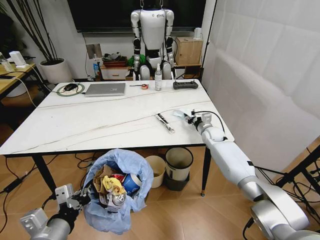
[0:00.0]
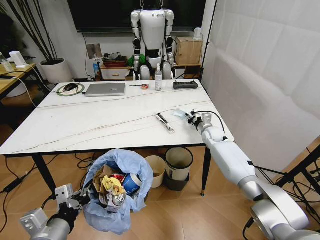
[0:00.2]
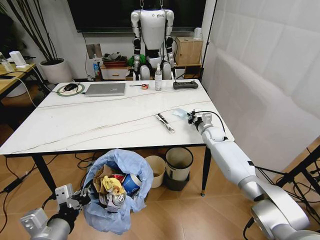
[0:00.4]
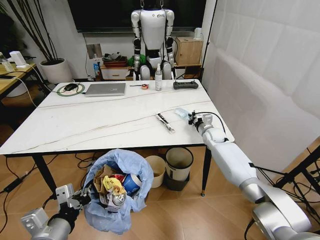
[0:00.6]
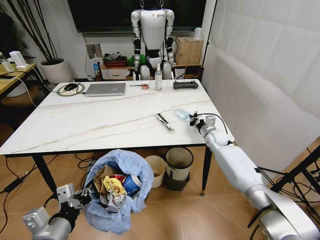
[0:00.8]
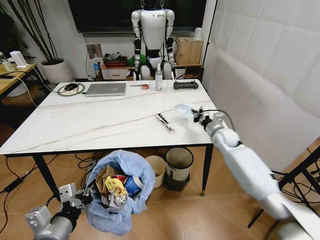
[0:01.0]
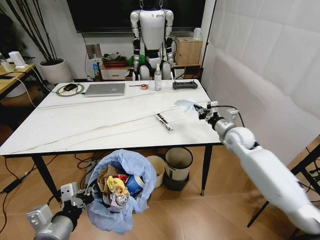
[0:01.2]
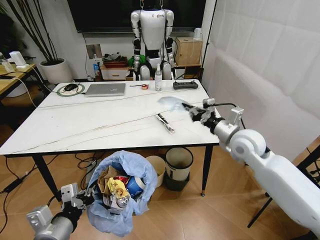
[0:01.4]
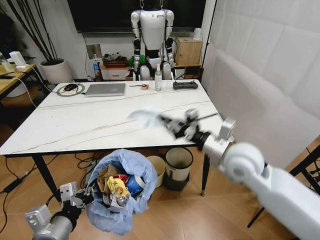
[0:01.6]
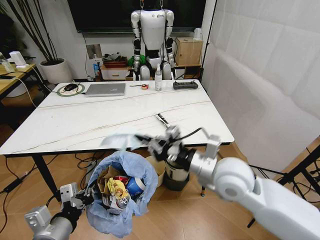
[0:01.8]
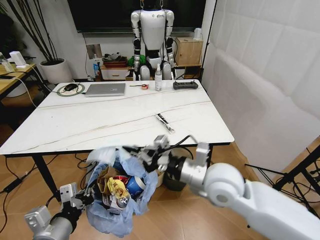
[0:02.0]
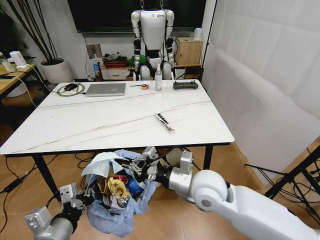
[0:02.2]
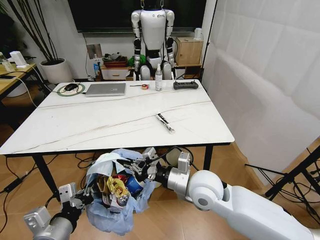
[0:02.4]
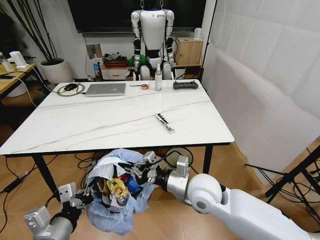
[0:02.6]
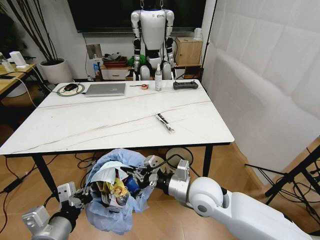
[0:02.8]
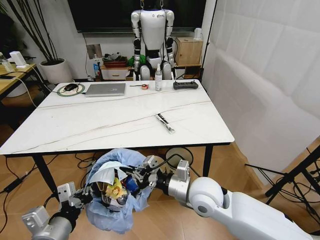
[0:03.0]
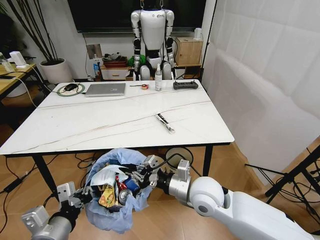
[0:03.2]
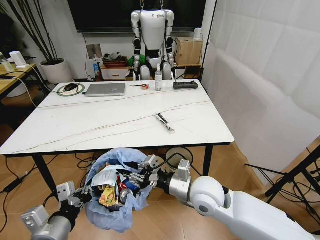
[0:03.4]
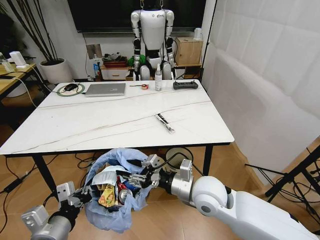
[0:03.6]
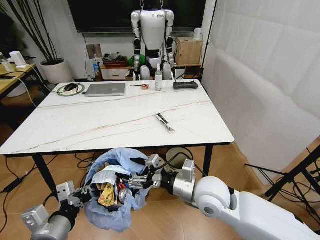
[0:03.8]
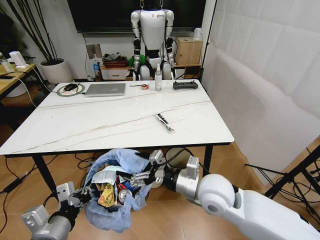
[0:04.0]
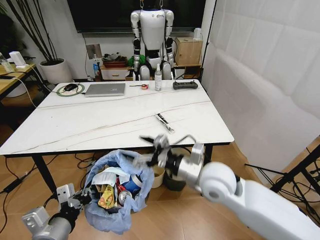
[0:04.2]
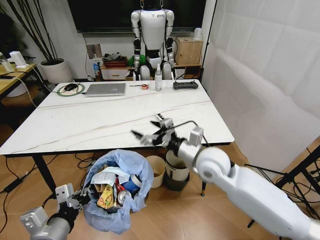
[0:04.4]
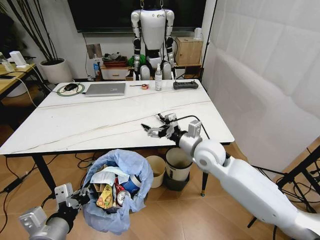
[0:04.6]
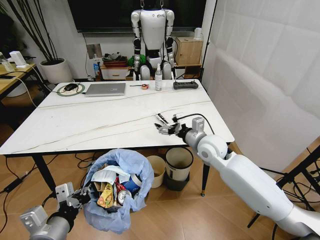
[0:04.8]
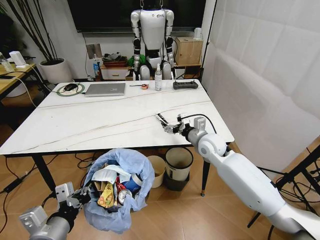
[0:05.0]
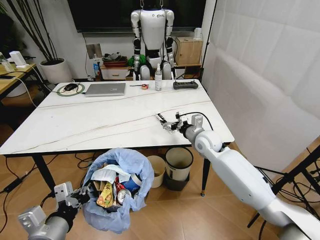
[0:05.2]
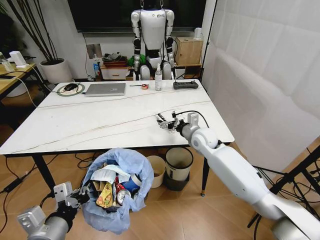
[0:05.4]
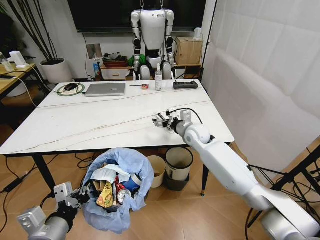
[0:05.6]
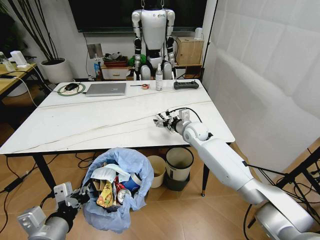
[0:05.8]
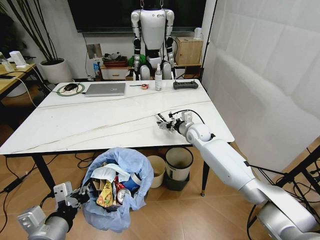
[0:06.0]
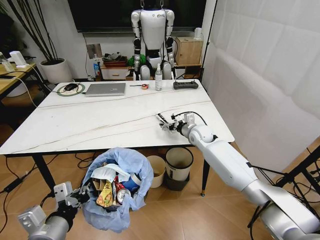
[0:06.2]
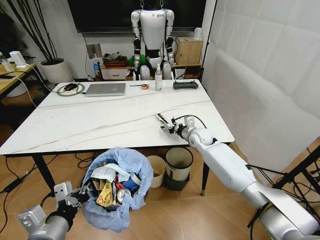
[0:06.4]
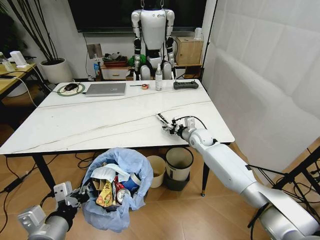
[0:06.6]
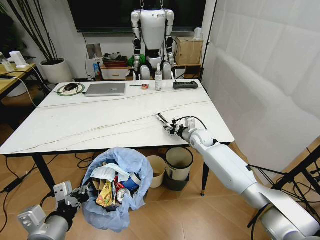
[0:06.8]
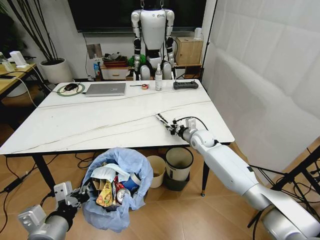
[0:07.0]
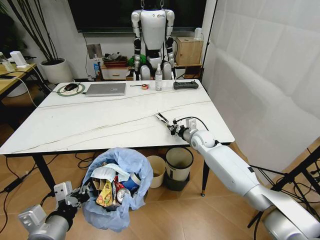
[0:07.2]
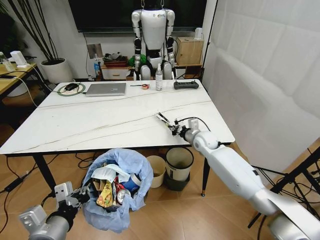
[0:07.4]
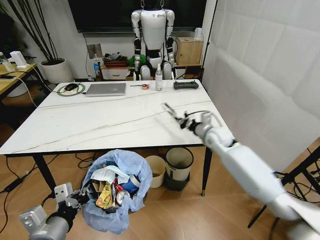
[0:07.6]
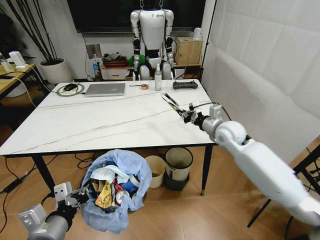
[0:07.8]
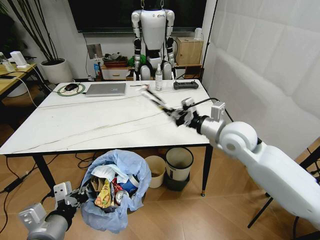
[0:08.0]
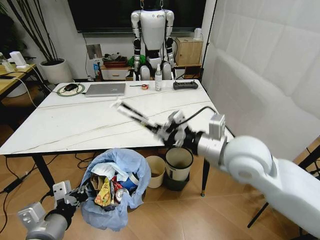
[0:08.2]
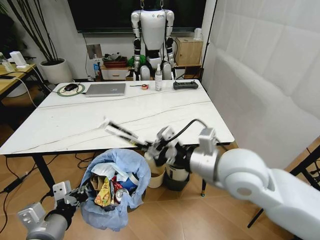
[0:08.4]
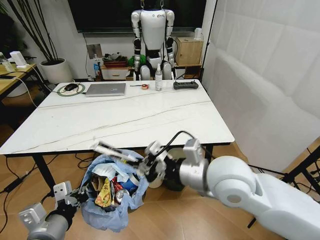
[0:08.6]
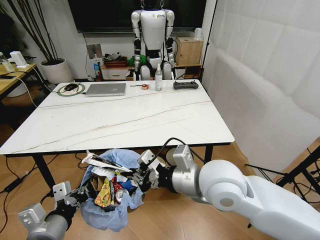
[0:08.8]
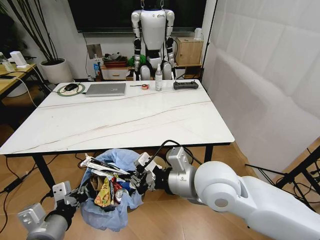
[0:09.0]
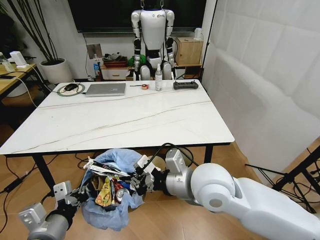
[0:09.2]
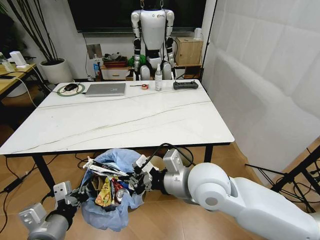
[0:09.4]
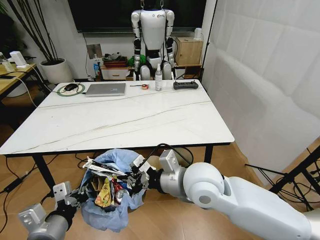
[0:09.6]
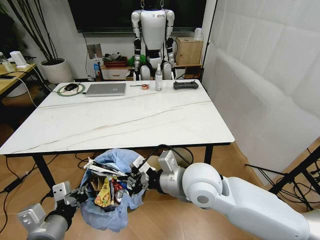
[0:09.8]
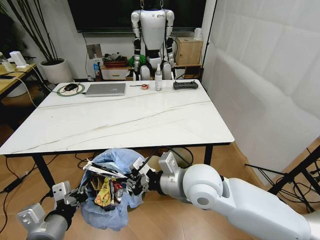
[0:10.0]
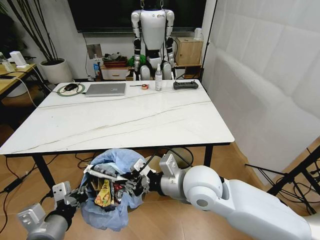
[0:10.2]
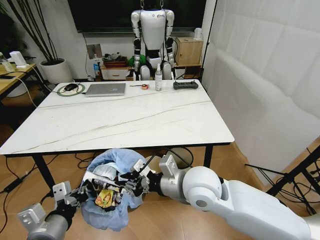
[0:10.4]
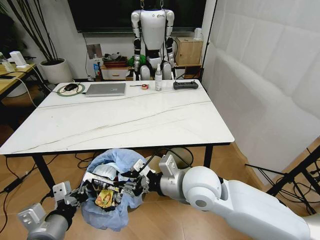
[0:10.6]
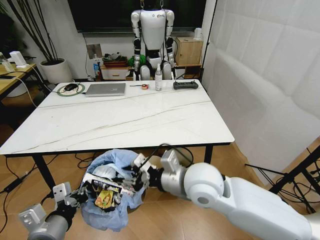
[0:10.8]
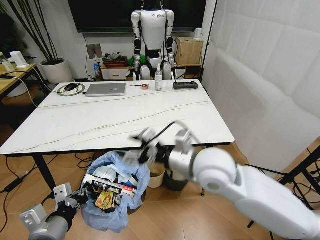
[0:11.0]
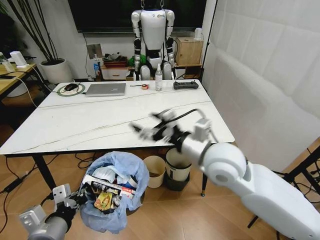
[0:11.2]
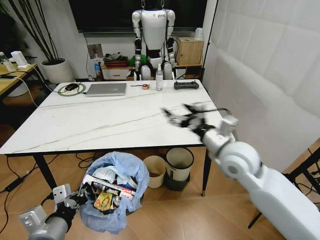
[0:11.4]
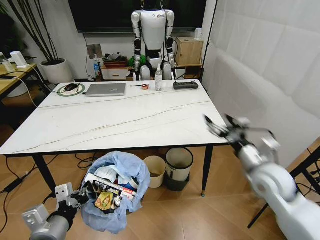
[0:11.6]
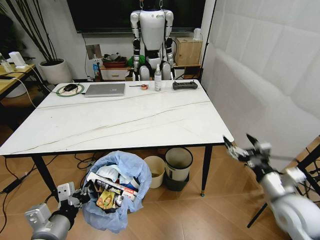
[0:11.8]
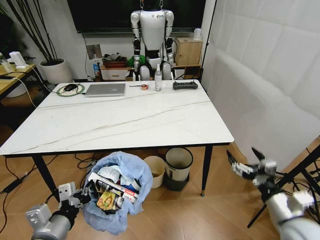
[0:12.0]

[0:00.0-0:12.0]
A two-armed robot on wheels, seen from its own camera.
Task of the whole recording: Pick up the trash bin and place the trash from the table into it.
0:00.0 to 0:01.6: The right gripper goes about 30 cm backward and upward, and closes up.
0:01.6 to 0:03.0: The right gripper heads to the left, downward and backward, covering some 15 cm.
0:03.0 to 0:04.4: The right gripper travels forward and upward by approximately 10 cm, and opens its fingers.
0:04.4 to 0:06.0: The right gripper is displaced forward and downward by about 20 cm.
0:06.0 to 0:07.6: The right gripper is displaced to the right by some 5 cm, and closes up.
0:07.6 to 0:09.0: The right gripper shifts approximately 30 cm backward, upward and to the left.
0:09.0 to 0:10.4: The right gripper is displaced downward by approximately 5 cm.
0:10.4 to 0:12.0: The right gripper is displaced to the right and backward by roughly 30 cm, and opens.

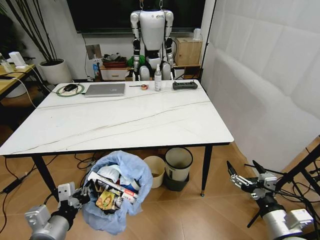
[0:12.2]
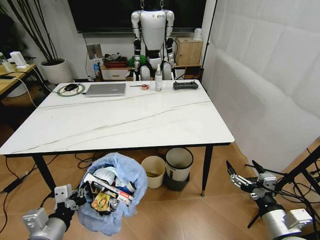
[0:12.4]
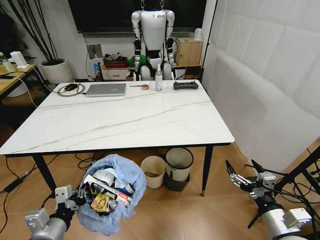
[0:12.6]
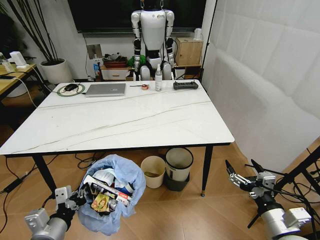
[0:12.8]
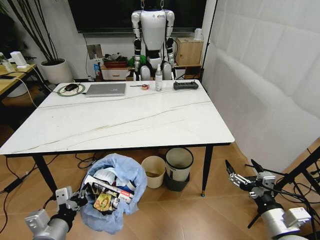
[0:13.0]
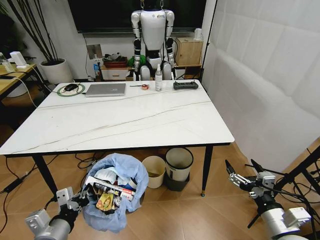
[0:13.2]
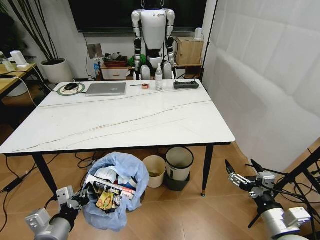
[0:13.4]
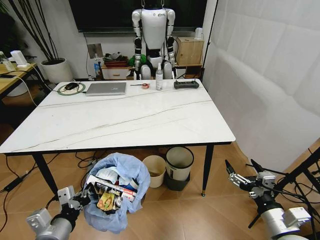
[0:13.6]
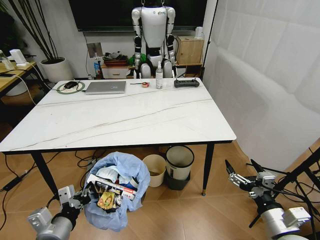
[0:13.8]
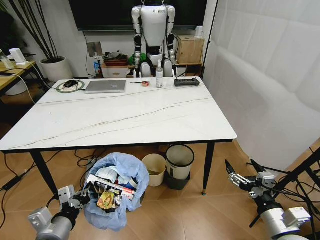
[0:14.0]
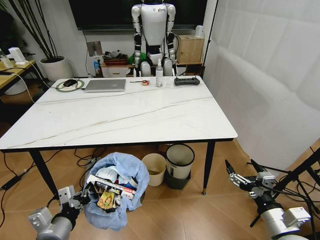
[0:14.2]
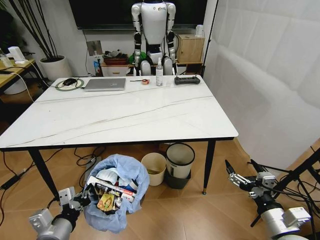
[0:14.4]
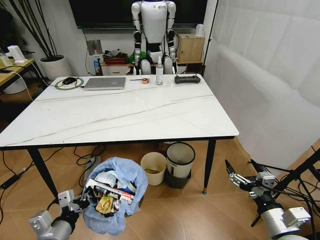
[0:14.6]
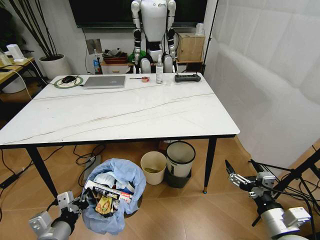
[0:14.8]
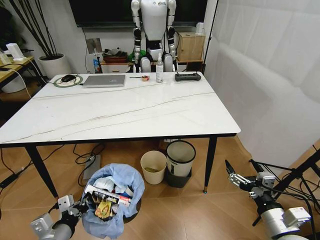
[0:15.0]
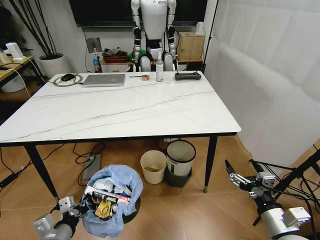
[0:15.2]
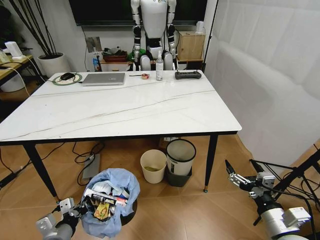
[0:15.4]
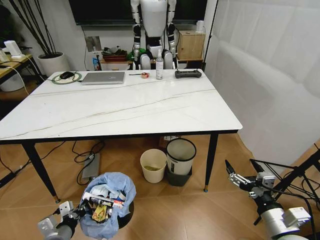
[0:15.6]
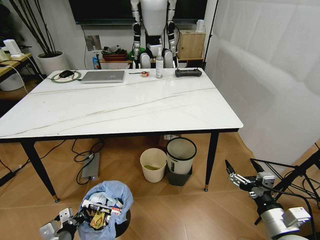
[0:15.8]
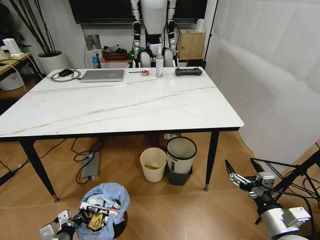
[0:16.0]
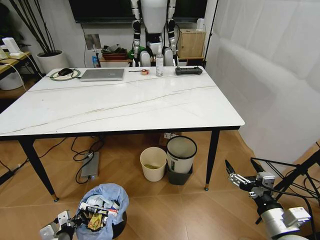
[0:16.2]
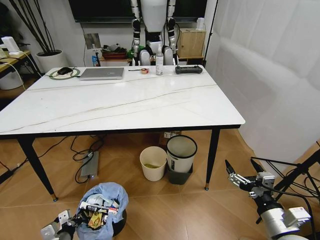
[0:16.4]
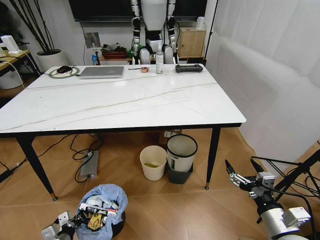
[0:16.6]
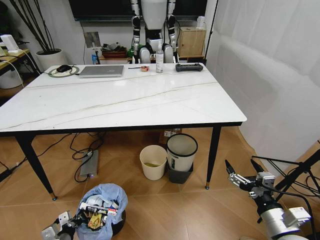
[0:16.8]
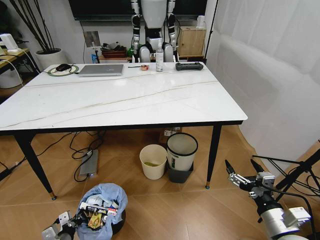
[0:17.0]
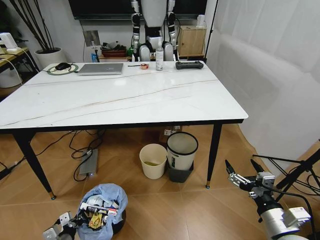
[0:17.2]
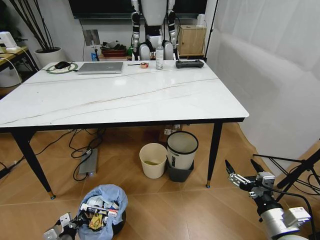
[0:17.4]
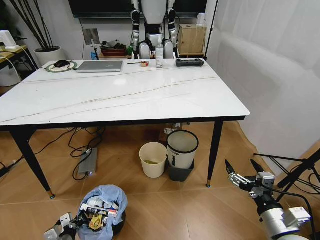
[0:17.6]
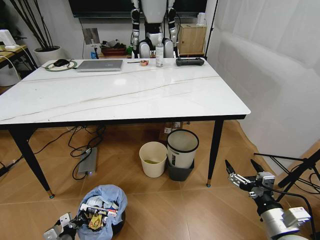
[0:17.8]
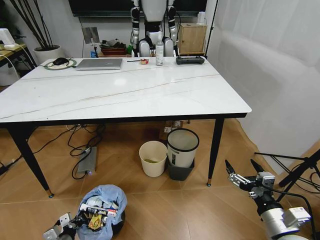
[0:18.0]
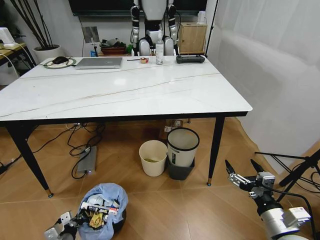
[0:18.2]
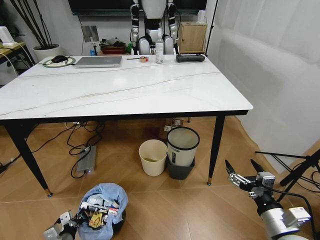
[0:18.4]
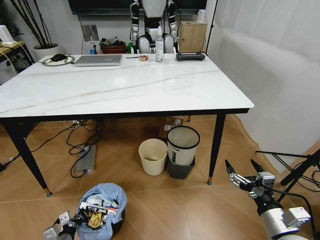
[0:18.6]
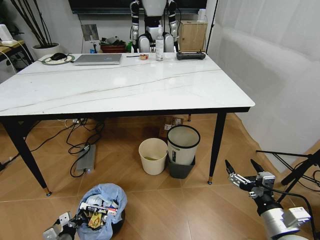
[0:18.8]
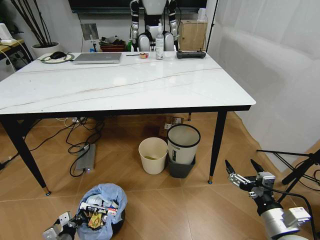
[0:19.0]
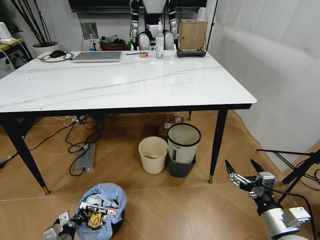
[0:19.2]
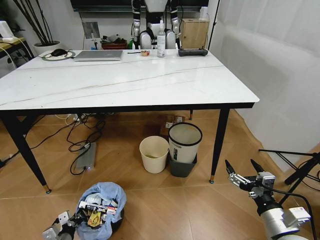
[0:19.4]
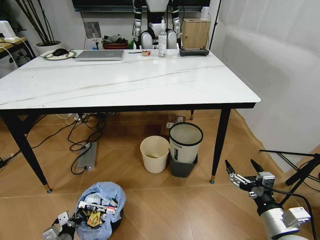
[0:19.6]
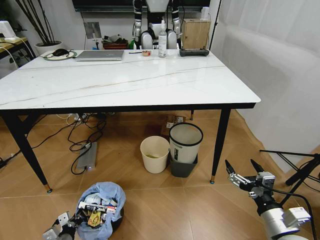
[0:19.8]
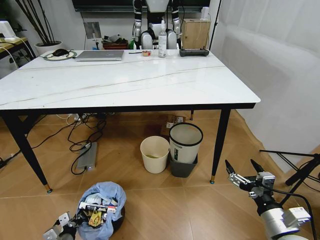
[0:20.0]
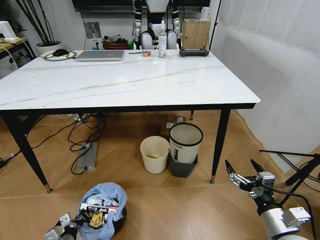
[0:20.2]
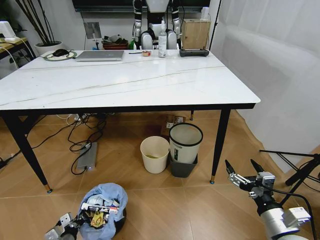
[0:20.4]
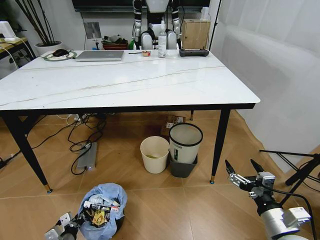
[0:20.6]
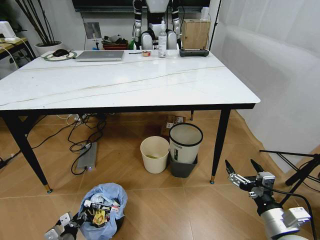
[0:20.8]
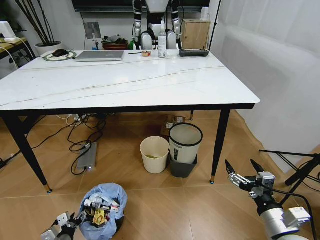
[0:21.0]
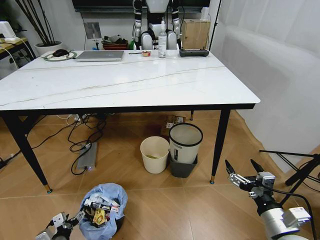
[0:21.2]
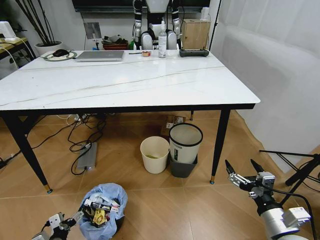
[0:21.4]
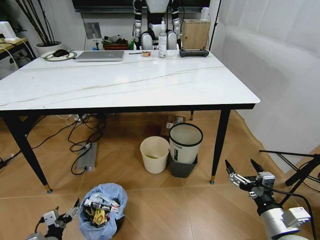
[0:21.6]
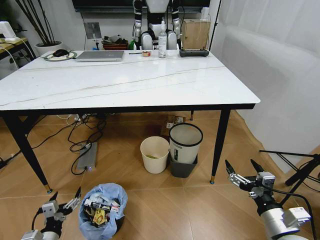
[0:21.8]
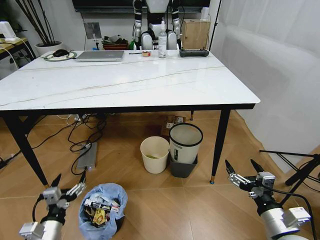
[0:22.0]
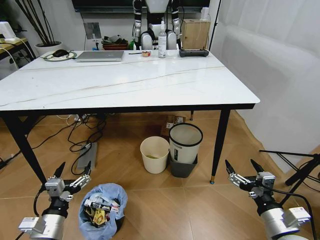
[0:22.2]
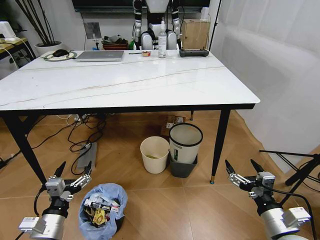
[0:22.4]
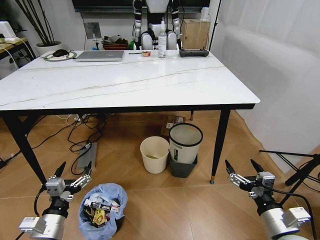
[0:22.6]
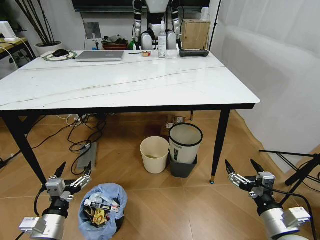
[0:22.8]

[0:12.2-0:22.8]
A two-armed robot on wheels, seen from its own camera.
Task of the whole recording: Pick up the trash bin and place the trash from the table into it.
0:13.8 to 0:15.2: The left gripper shifts about 5 cm downward.
0:15.2 to 0:16.8: The left gripper goes some 15 cm downward and to the left.
0:19.8 to 0:21.2: The left gripper opens its fingers.
0:21.2 to 0:22.8: The left gripper heads upward, covering approximately 20 cm.
